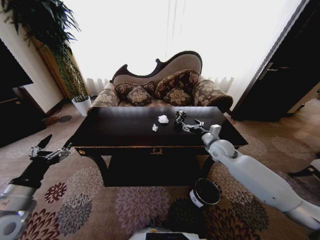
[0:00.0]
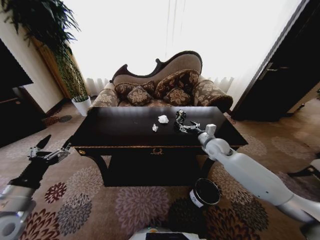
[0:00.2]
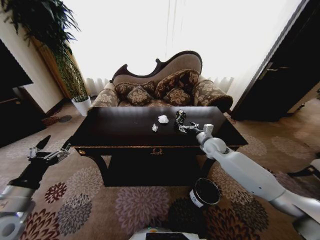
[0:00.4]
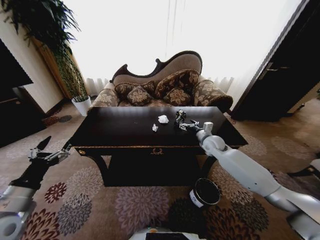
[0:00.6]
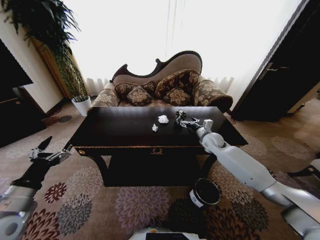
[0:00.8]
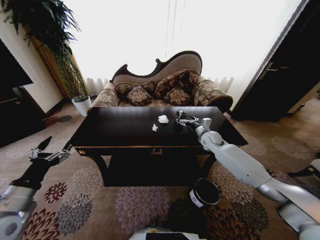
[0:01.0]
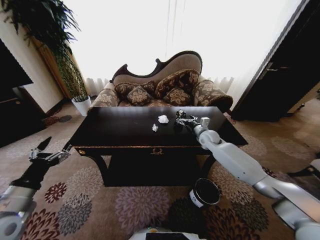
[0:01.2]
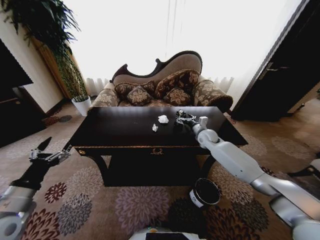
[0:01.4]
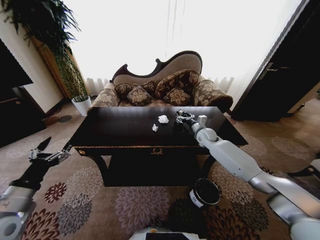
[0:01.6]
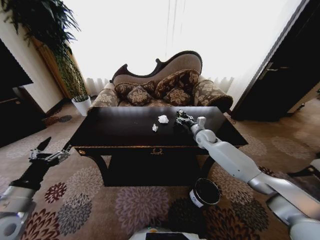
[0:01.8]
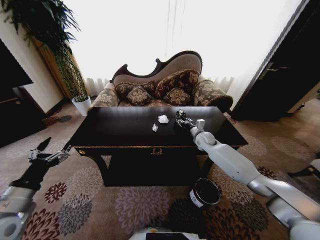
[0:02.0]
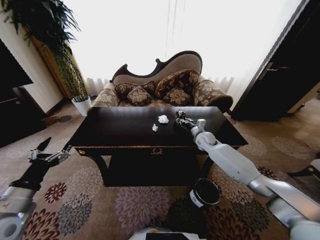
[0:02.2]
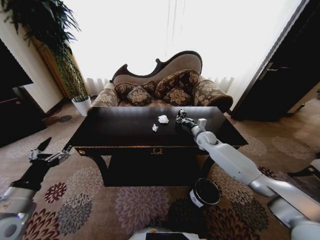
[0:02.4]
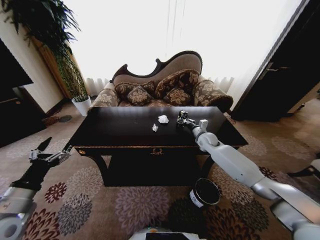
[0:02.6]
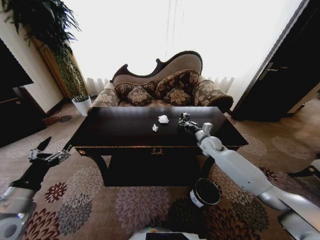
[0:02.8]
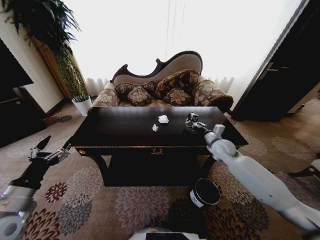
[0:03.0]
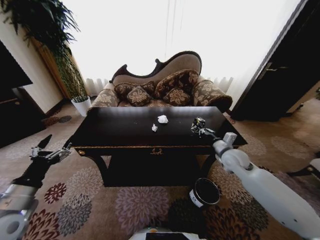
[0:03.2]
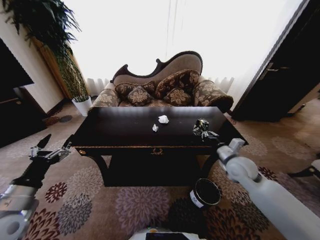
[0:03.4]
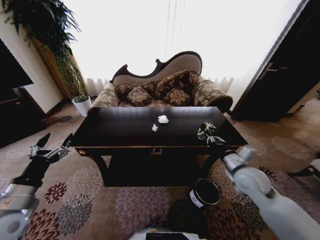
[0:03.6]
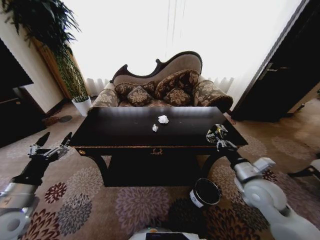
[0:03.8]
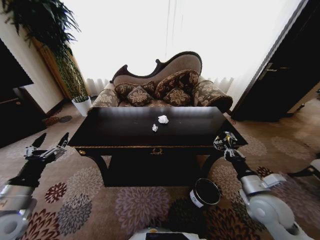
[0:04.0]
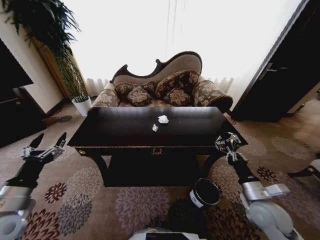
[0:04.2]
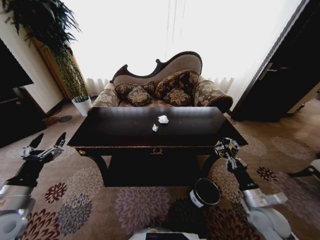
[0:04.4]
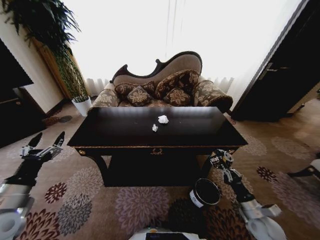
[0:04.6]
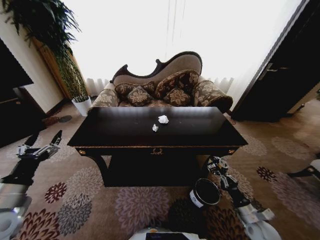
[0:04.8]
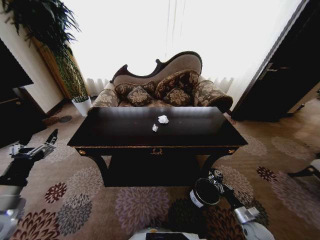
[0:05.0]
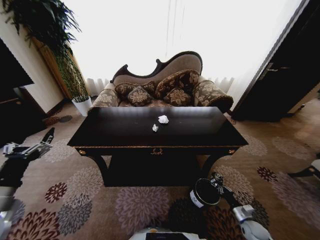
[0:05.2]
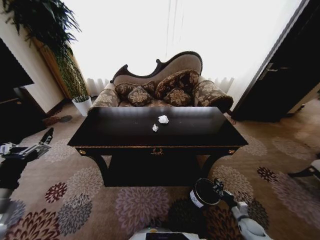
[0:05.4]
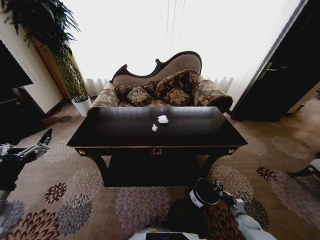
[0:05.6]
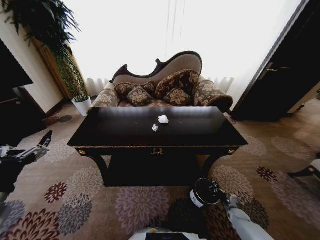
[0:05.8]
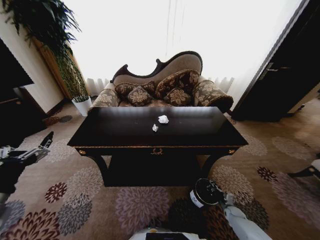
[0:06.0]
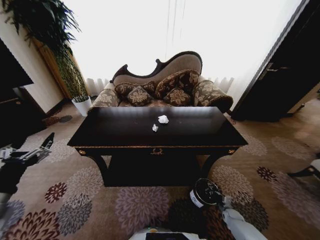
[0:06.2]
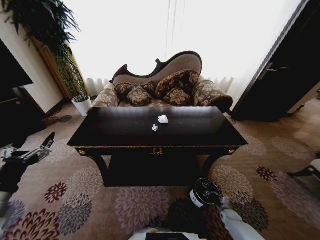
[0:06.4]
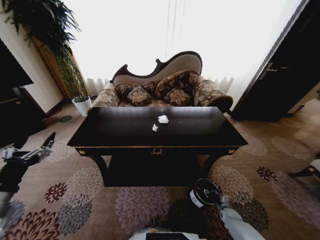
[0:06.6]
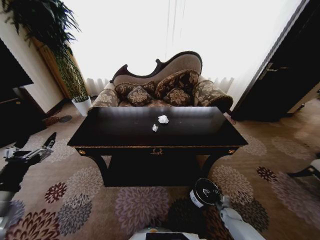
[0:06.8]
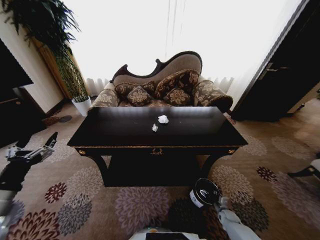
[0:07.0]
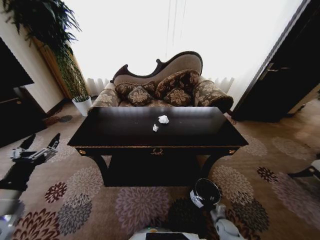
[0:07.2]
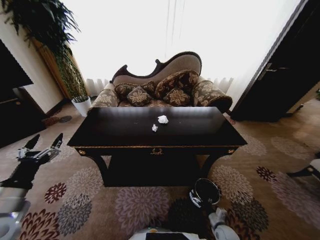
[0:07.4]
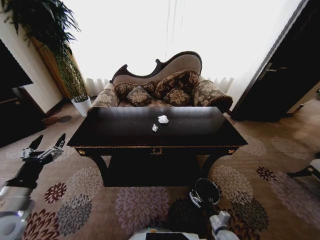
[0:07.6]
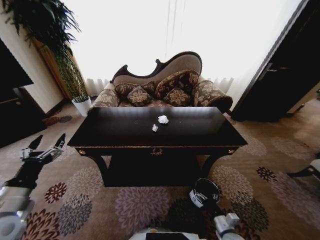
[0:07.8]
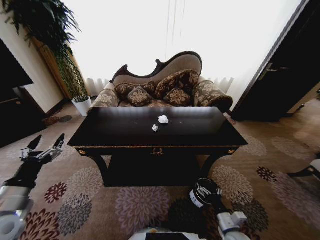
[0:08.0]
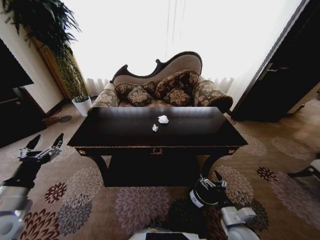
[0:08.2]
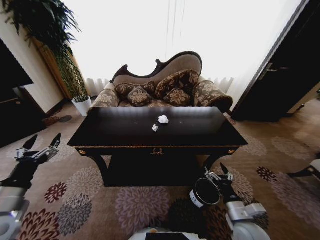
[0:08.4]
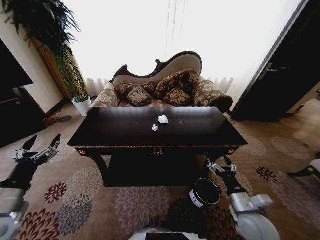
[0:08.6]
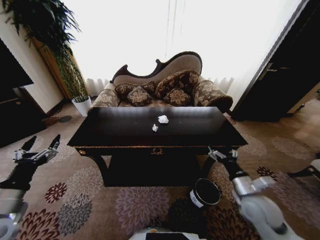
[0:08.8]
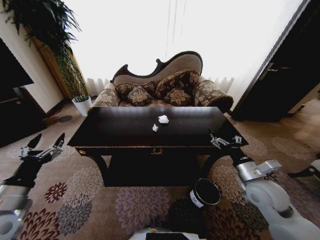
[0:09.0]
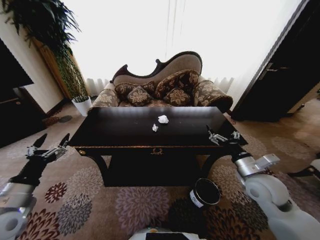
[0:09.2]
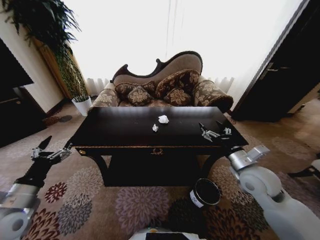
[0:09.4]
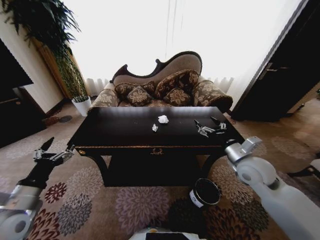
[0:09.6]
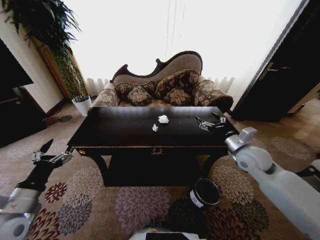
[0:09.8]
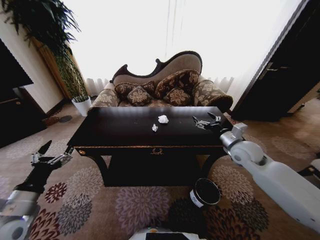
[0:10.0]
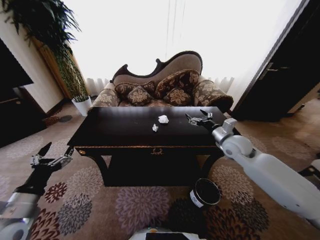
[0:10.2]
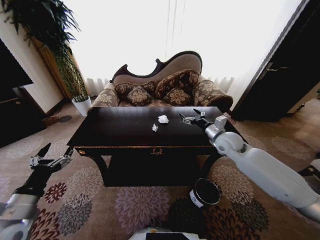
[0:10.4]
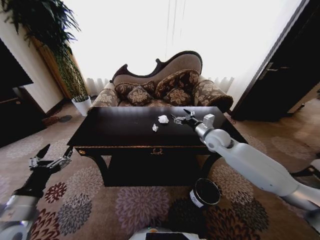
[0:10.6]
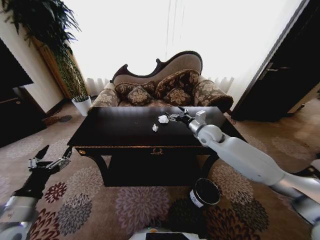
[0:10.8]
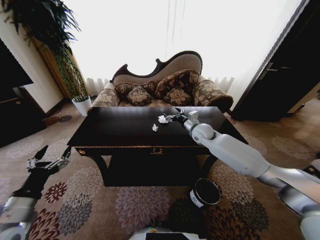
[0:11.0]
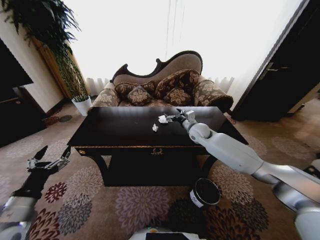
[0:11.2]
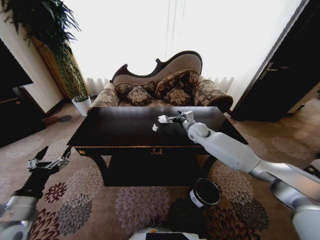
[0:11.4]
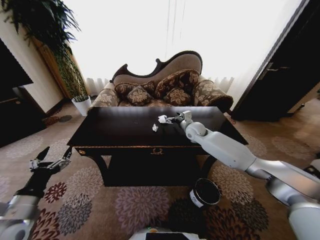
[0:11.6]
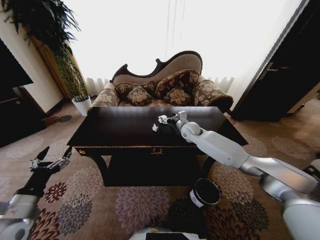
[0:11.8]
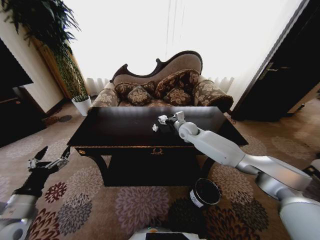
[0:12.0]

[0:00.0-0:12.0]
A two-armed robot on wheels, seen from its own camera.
Task of the whole recording: Move to the front of the table and place the trash on the table into the trash bin.
0:00.0 to 0:01.6: The right gripper travels forward by roughly 10 cm.
0:01.6 to 0:03.0: The right gripper moves backward, approximately 10 cm, and closes.
0:03.0 to 0:04.4: The right gripper is displaced backward and downward by about 25 cm.
0:04.4 to 0:06.0: The right gripper goes approximately 30 cm downward.
0:06.0 to 0:07.6: The right gripper travels to the left, backward and upward by some 20 cm, and opens up.
0:07.6 to 0:09.0: The right gripper travels upward by some 30 cm.
0:09.0 to 0:10.4: The right gripper moves forward, roughly 20 cm.
0:10.4 to 0:12.0: The right gripper heads to the left and forward, covering about 15 cm.

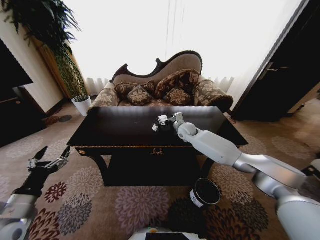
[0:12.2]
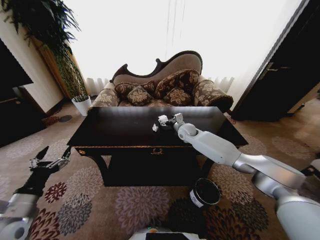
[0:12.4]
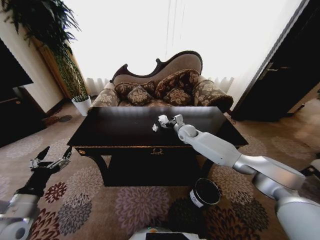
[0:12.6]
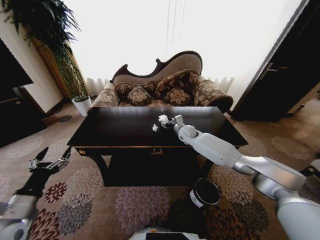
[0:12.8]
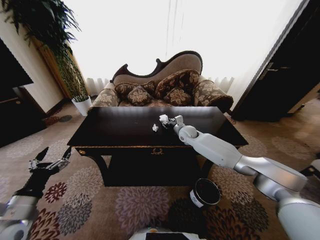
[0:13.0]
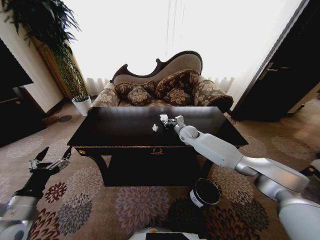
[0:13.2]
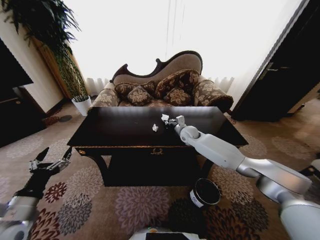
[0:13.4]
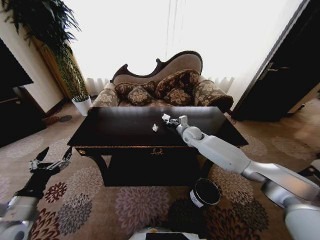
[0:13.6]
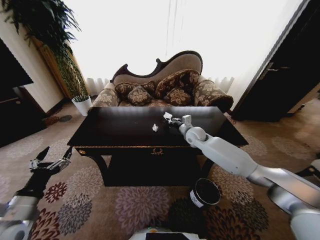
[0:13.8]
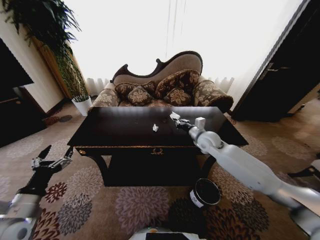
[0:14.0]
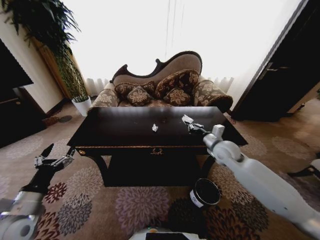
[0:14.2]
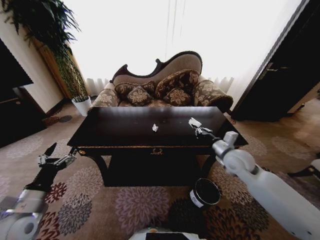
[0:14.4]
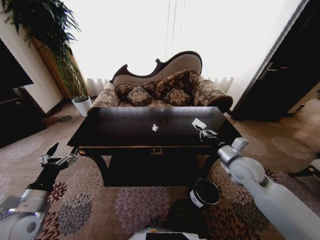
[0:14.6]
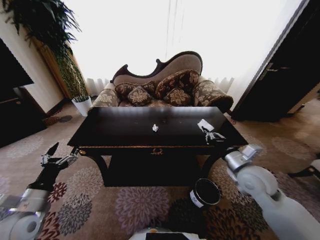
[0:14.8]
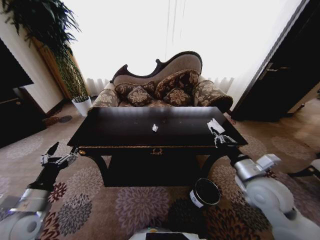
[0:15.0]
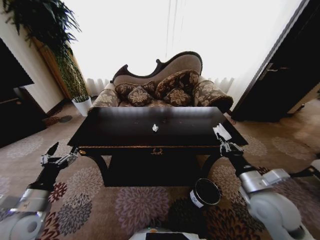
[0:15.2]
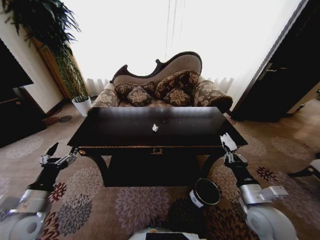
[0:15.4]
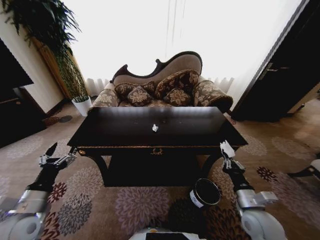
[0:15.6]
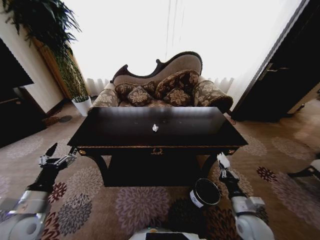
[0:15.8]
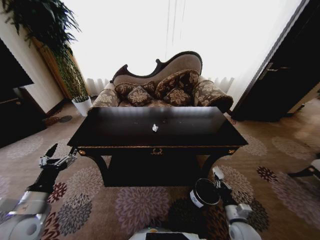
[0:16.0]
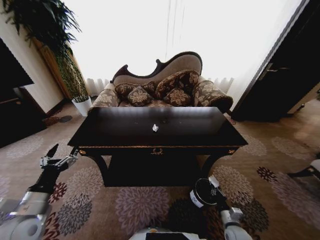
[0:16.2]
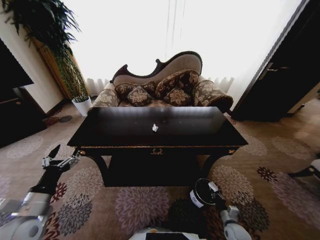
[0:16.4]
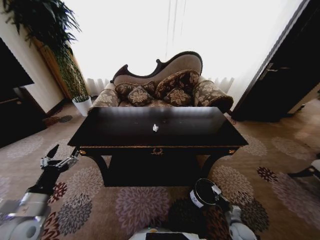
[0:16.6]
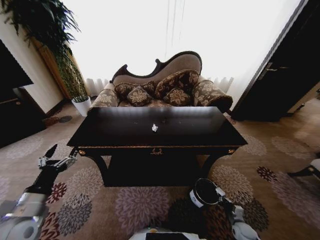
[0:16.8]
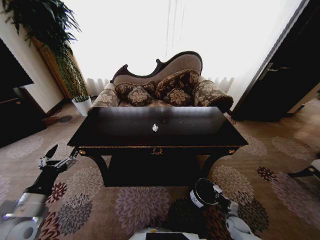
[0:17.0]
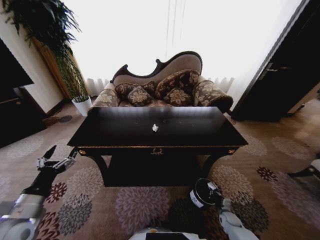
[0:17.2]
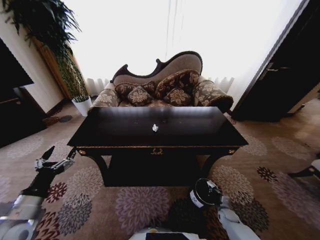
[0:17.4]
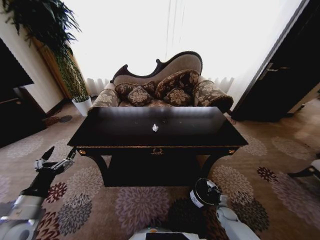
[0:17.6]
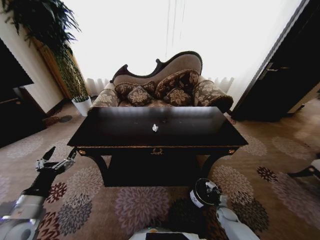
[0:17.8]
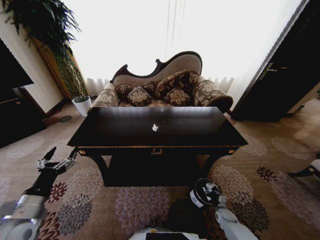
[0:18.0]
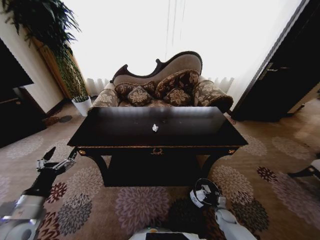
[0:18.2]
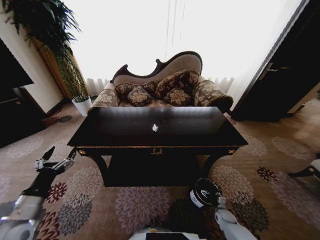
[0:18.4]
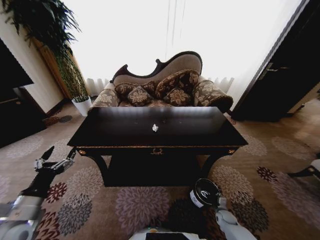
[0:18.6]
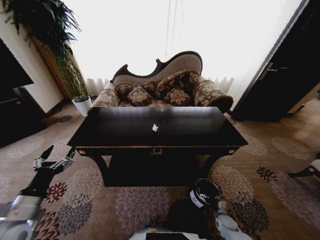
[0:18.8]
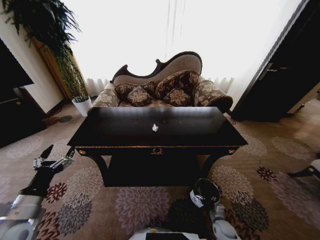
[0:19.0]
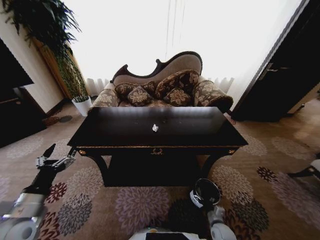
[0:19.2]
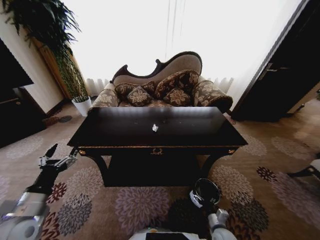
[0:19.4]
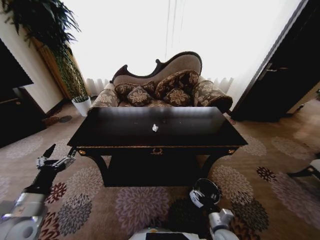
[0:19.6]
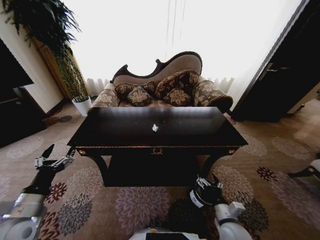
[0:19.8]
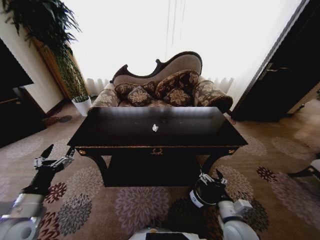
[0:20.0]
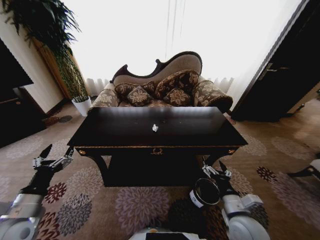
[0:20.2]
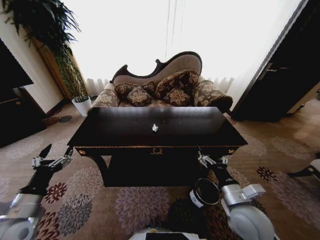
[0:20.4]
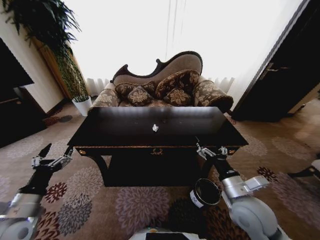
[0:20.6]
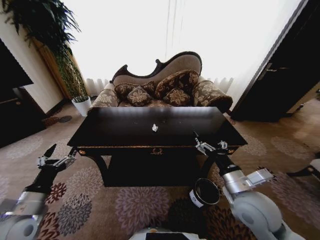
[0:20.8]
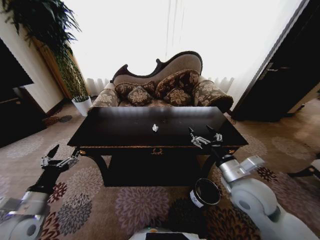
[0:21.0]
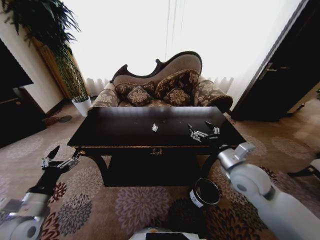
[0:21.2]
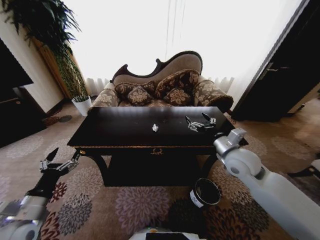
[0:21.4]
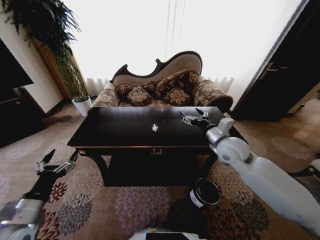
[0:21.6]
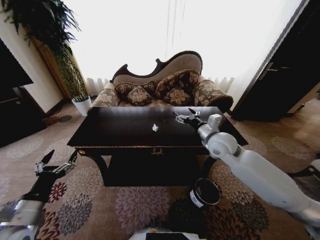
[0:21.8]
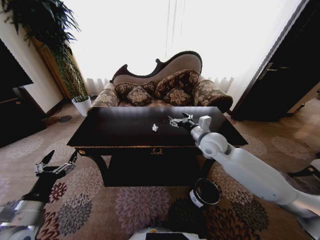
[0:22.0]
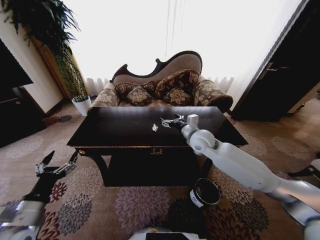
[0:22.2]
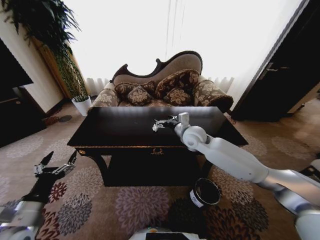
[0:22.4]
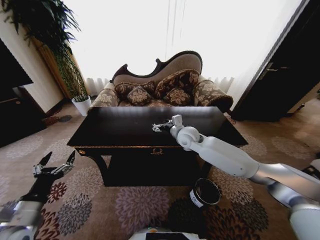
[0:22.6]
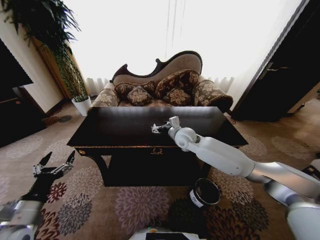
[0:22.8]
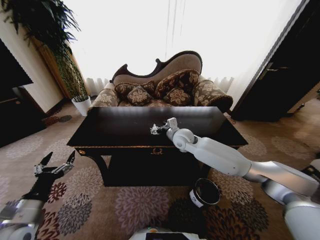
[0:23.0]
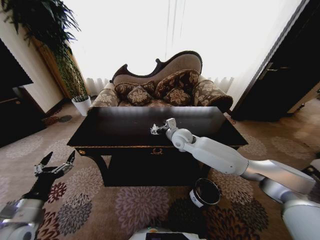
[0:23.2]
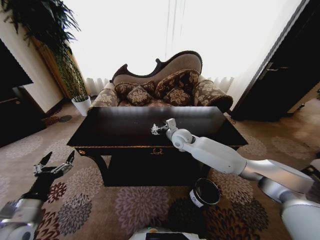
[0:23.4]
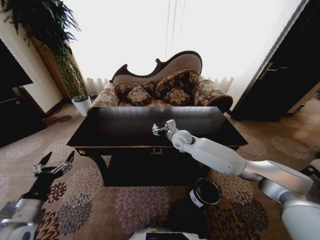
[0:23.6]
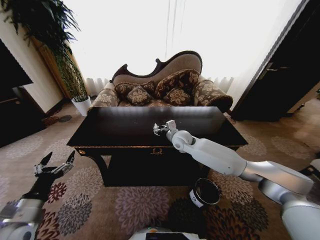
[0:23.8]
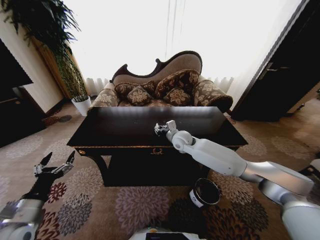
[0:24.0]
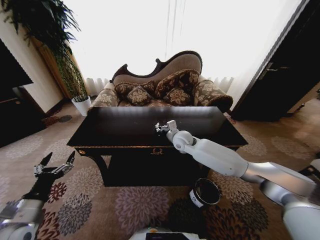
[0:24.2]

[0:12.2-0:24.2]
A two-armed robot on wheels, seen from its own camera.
Task of the whole recording: Move to the front of the table and place the trash on the table into the trash bin.
0:12.2 to 0:13.8: The right gripper ends up roughly 5 cm from where it was, and closes.
0:13.8 to 0:15.2: The right gripper goes some 30 cm backward.
0:15.2 to 0:16.6: The right gripper goes some 35 cm downward.
0:16.6 to 0:18.2: The right gripper travels forward by about 5 cm, and opens up.
0:18.2 to 0:19.8: The right gripper shifts some 25 cm upward and to the left, and opens.
0:19.8 to 0:21.2: The right gripper moves upward and forward, approximately 25 cm.
0:21.2 to 0:22.6: The right gripper travels forward and to the left by some 25 cm.
0:22.6 to 0:24.2: The right gripper closes up.
